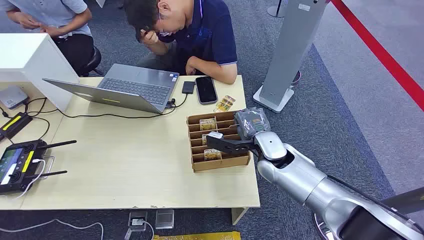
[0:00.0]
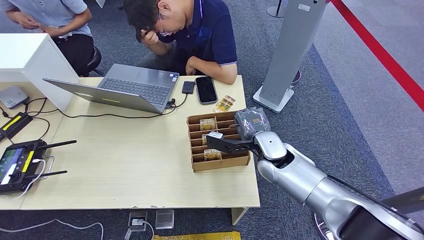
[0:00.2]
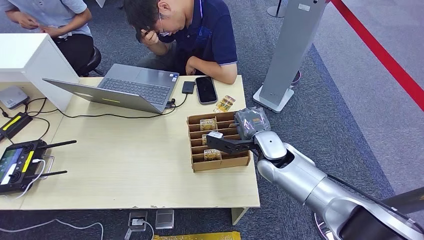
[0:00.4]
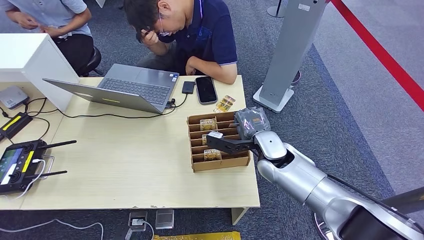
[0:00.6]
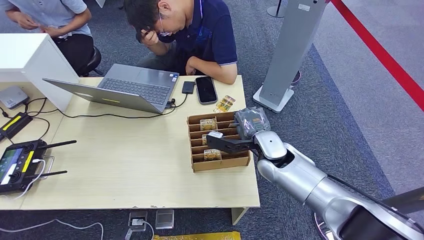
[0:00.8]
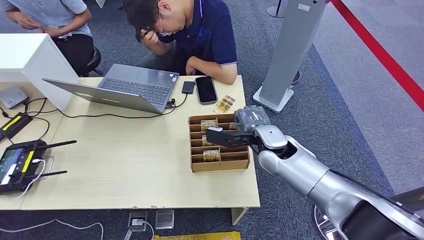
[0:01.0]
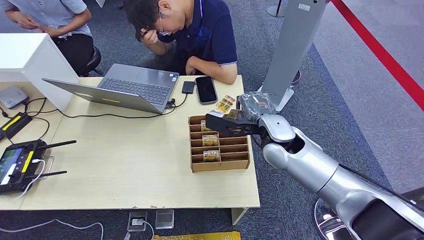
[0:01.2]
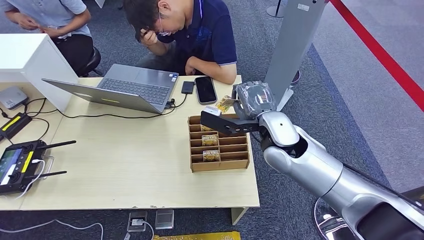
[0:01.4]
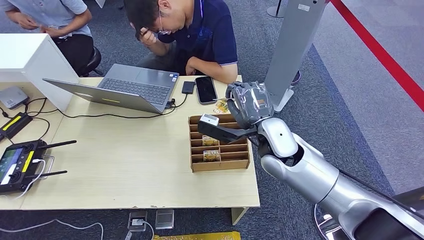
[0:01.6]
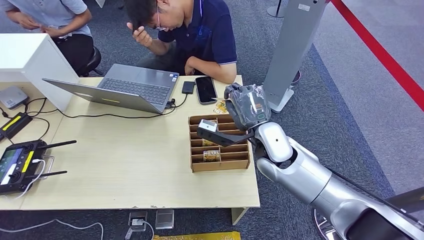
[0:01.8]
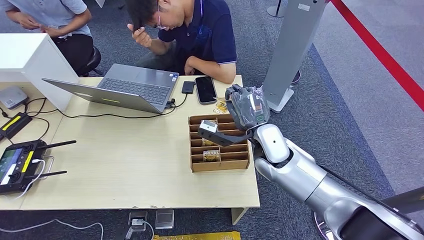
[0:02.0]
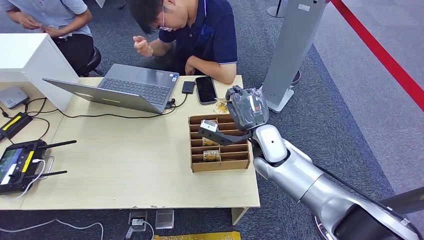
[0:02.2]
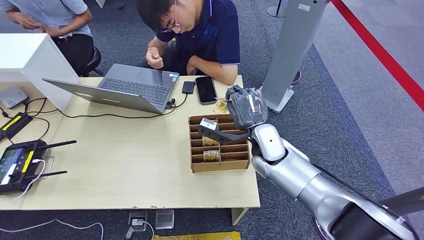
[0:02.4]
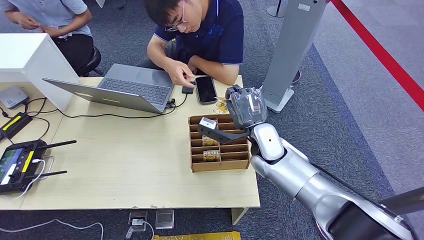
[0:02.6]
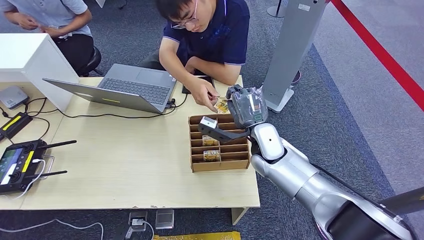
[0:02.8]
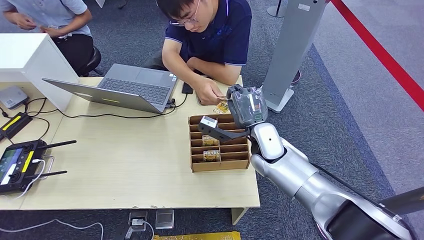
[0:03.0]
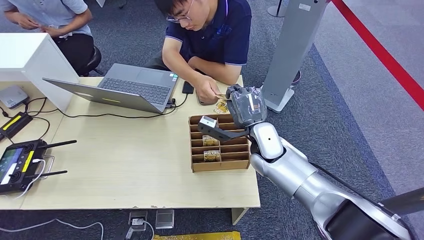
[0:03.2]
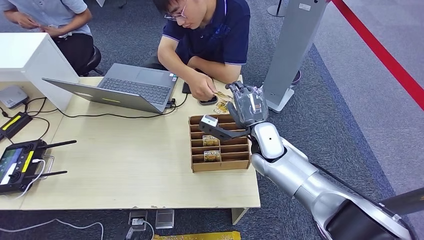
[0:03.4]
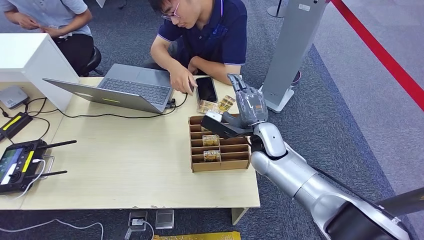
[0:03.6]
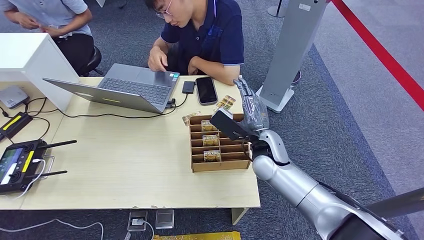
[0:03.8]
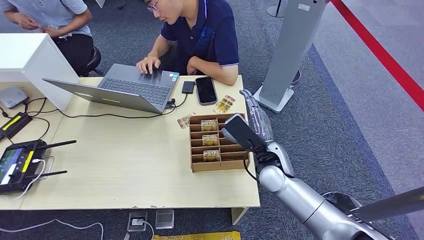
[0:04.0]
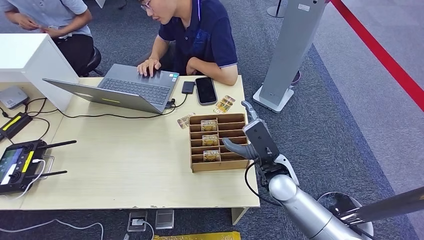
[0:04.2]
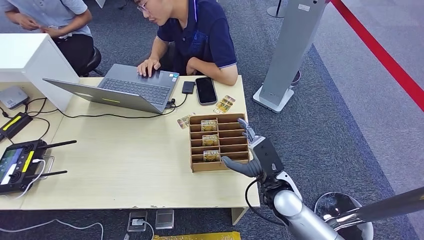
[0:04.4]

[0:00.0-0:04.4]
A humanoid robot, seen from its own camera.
Step, 0:00.0 to 0:01.2: Pick up the room card from the card holder.
Step, 0:02.2 to 0:04.4: Hand the room card to the target.
0:01.4 to 0:03.0: The right hand shifts by some 5 cm.
0:03.0 to 0:04.4: The right hand moves backward and downward, approximately 15 cm.
